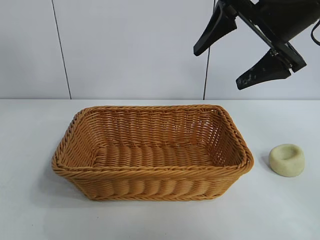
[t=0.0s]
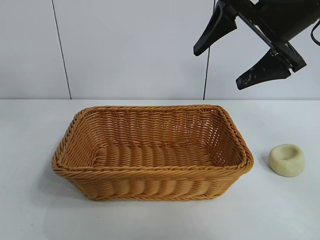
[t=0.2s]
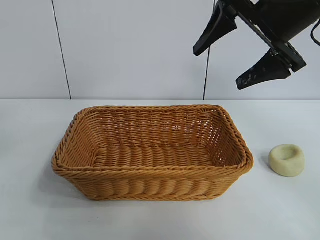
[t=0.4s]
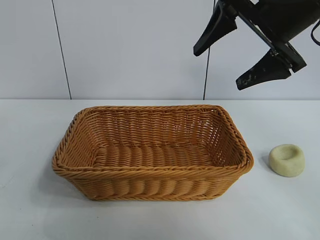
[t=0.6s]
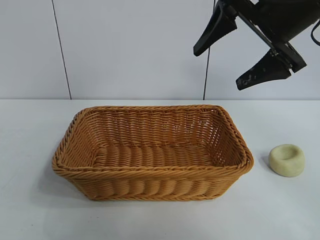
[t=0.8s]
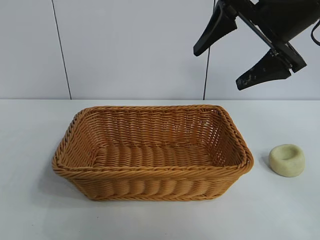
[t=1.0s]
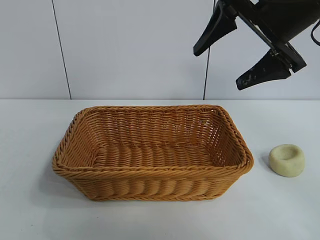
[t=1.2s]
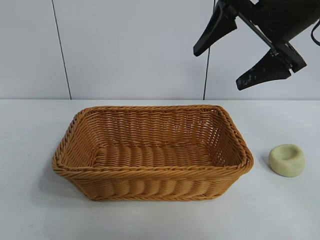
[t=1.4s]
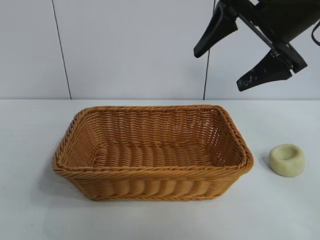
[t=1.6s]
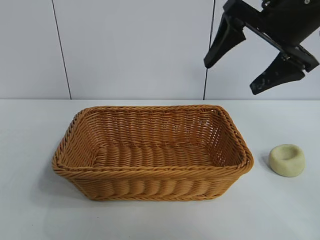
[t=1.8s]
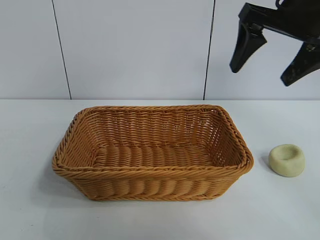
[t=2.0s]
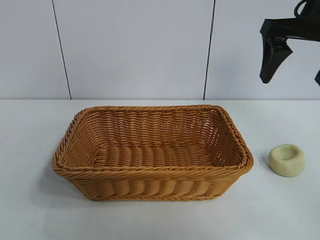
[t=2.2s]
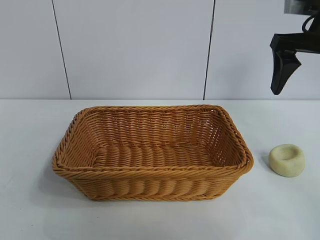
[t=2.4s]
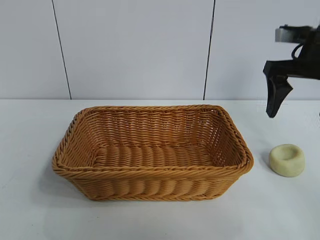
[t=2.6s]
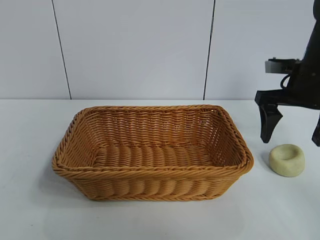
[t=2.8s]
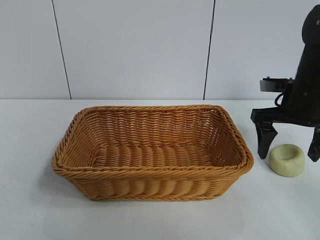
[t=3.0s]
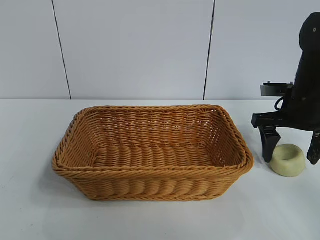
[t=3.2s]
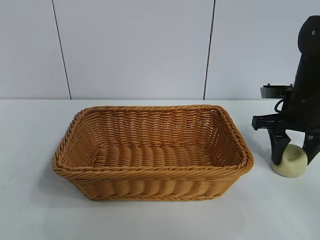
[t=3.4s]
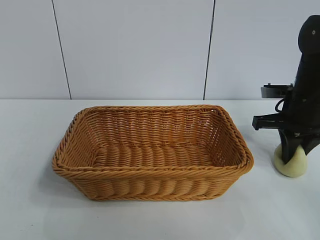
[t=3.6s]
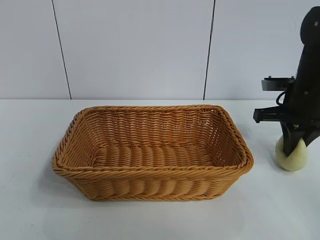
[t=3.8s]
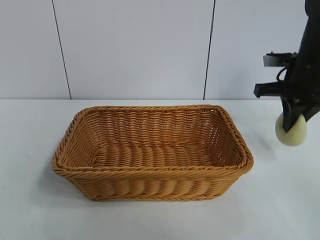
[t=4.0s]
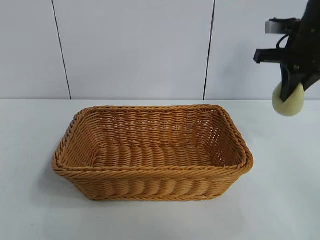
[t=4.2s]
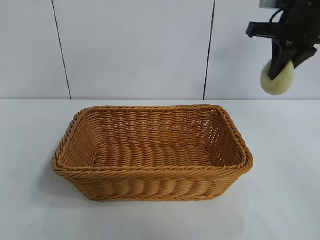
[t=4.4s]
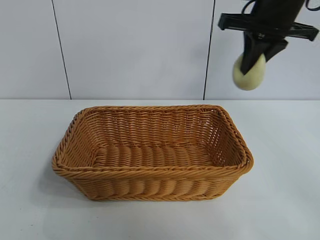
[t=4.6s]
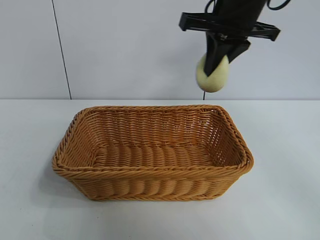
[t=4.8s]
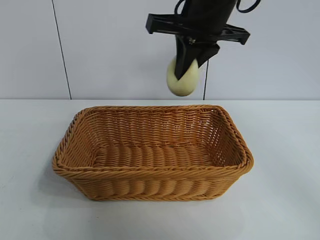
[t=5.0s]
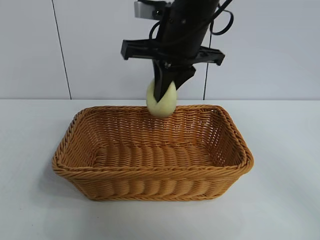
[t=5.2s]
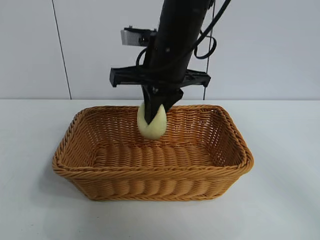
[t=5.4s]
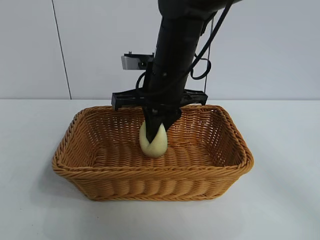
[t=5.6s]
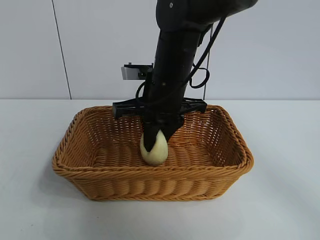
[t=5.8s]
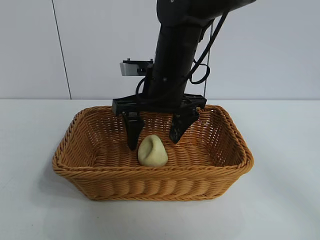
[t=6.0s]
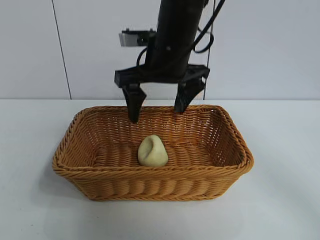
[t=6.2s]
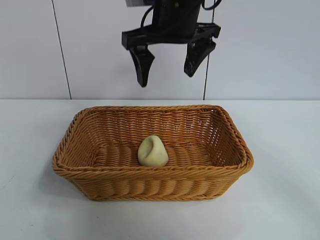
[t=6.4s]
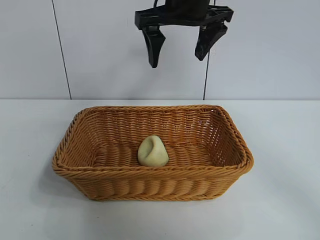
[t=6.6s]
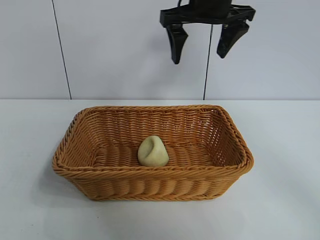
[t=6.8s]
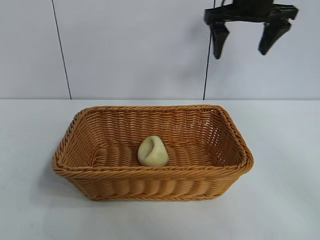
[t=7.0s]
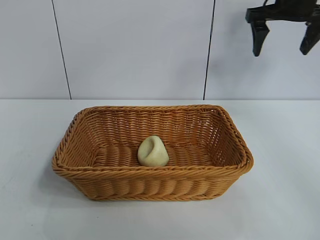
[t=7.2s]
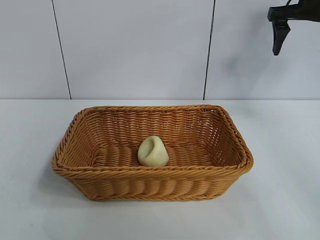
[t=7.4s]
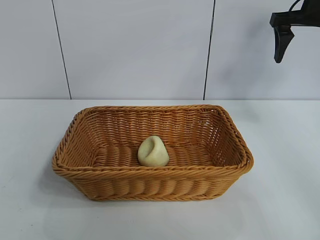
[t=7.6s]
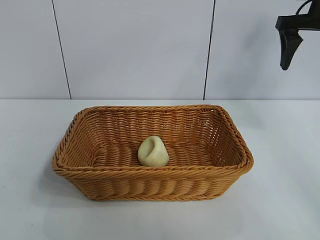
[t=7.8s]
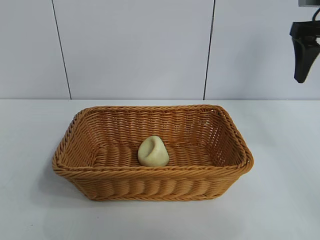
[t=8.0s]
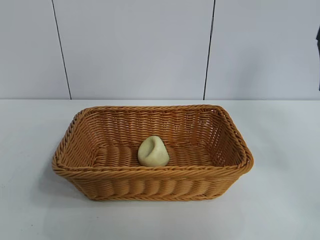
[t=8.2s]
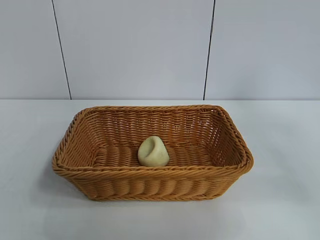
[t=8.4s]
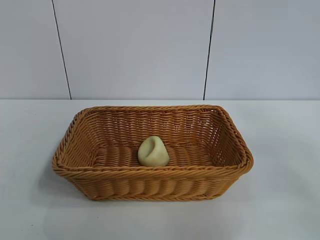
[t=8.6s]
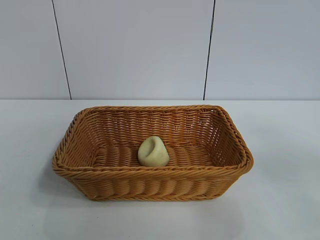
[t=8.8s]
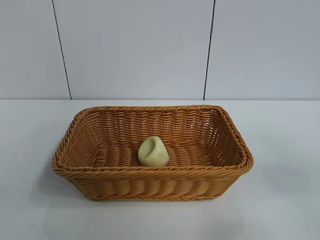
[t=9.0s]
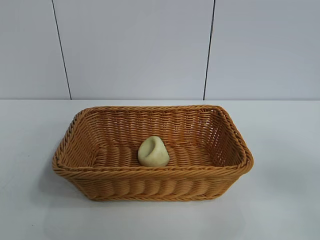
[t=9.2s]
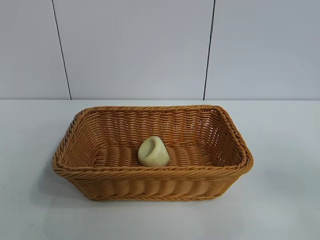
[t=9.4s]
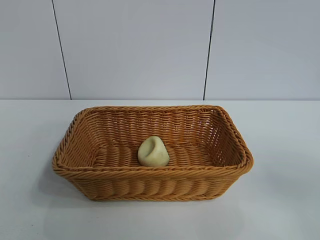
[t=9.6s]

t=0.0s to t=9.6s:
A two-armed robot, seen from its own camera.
Task of the whole recording: pick up the egg yolk pastry and put it into the basket.
Step, t=0.0s to t=3.6s: Grasp egg yolk pastry with right gripper.
Step, t=3.8s to t=6.0s: Place the egg yolk pastry in the basket with right gripper.

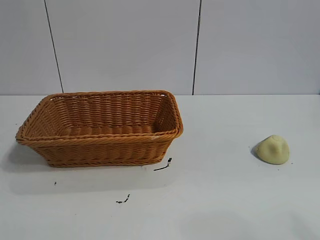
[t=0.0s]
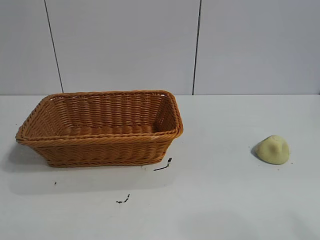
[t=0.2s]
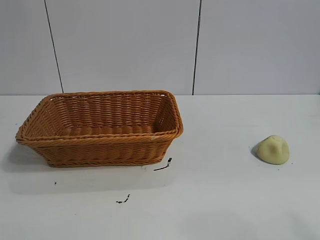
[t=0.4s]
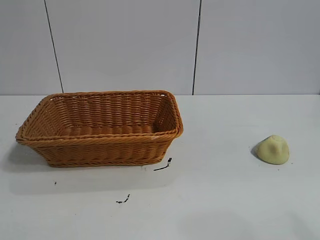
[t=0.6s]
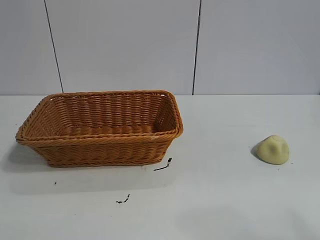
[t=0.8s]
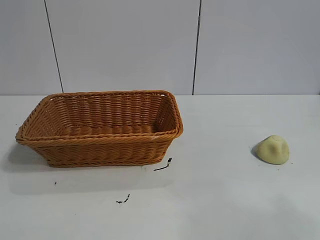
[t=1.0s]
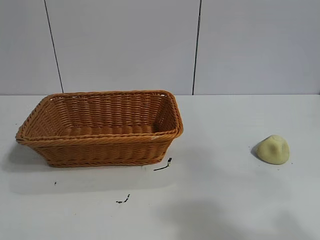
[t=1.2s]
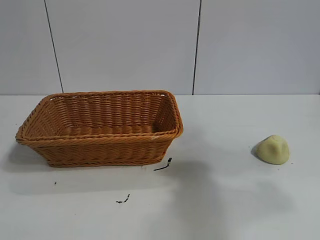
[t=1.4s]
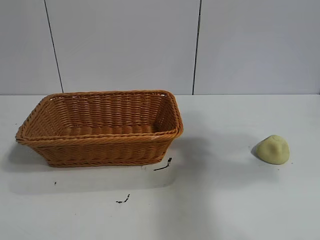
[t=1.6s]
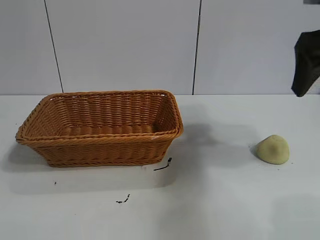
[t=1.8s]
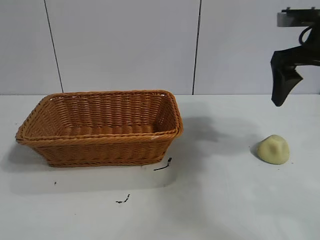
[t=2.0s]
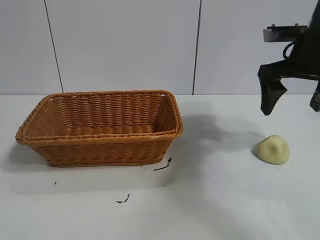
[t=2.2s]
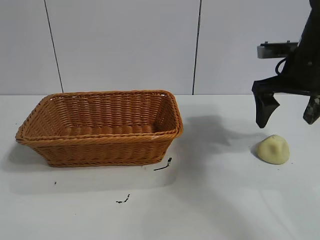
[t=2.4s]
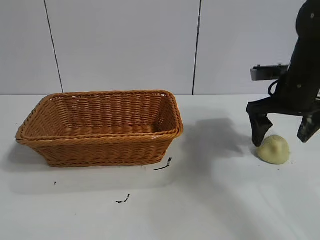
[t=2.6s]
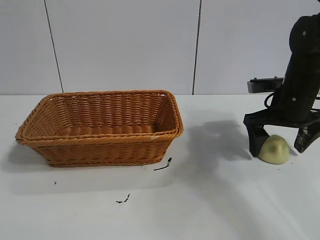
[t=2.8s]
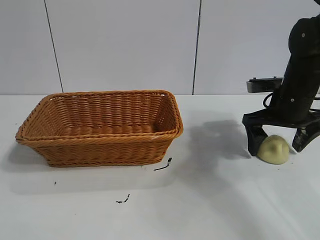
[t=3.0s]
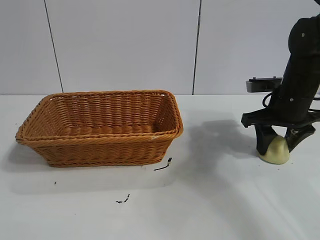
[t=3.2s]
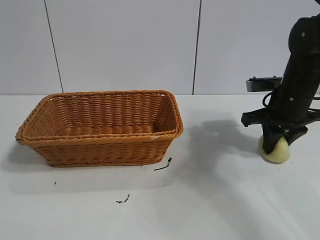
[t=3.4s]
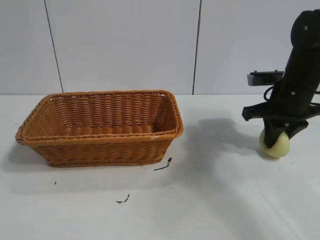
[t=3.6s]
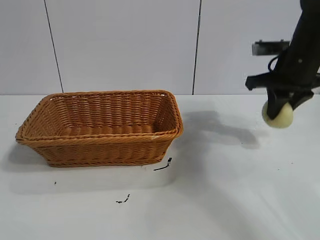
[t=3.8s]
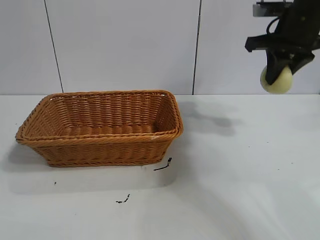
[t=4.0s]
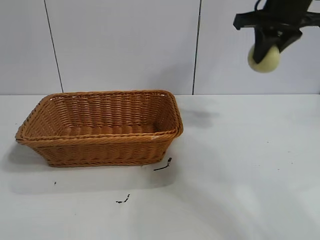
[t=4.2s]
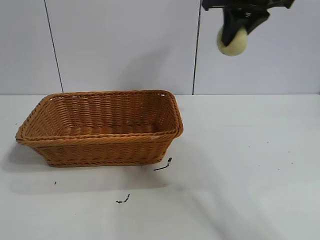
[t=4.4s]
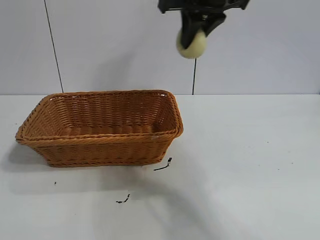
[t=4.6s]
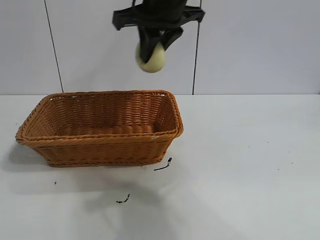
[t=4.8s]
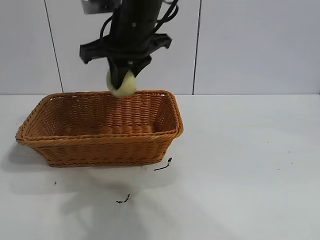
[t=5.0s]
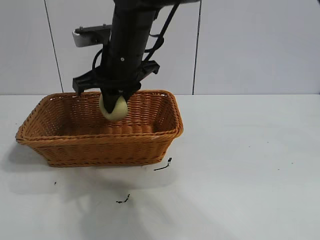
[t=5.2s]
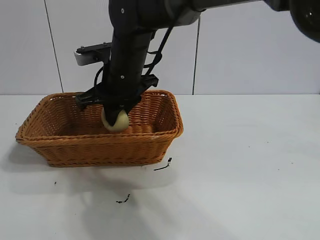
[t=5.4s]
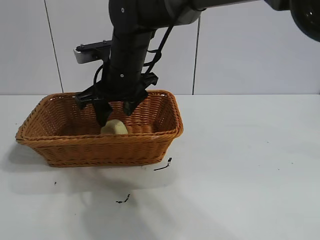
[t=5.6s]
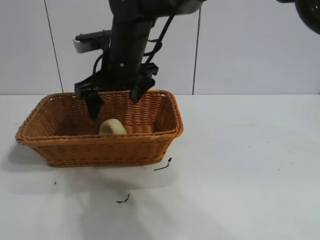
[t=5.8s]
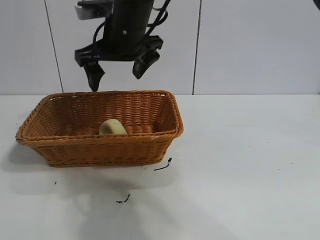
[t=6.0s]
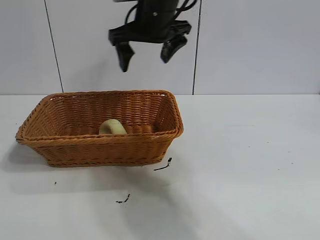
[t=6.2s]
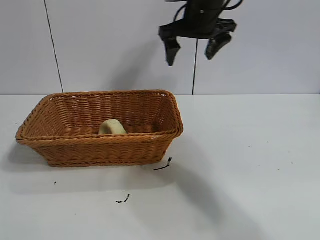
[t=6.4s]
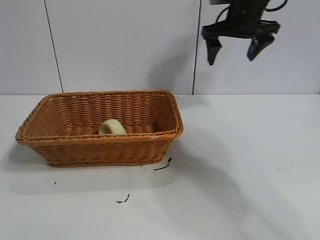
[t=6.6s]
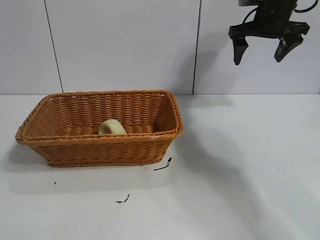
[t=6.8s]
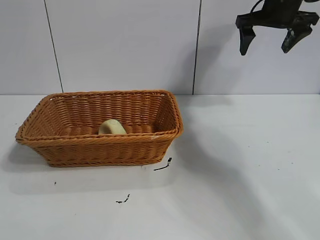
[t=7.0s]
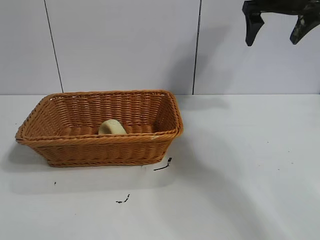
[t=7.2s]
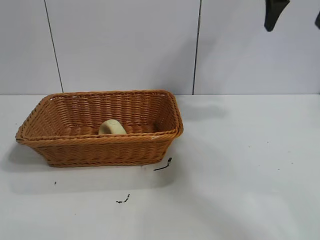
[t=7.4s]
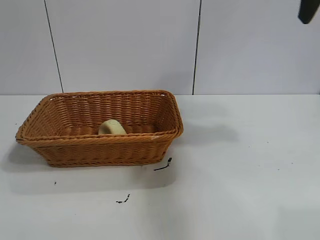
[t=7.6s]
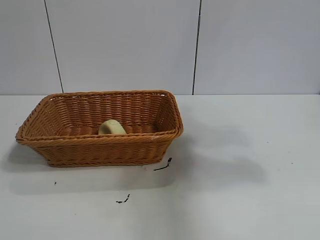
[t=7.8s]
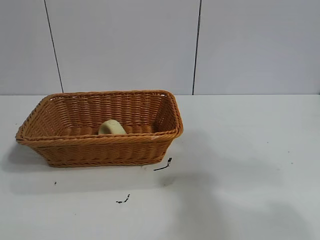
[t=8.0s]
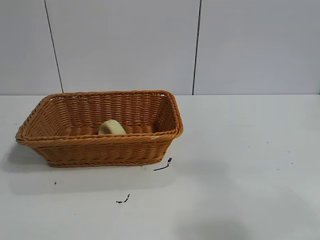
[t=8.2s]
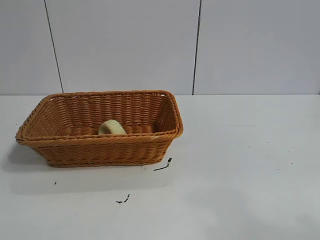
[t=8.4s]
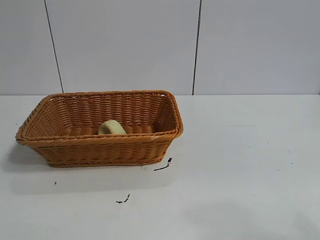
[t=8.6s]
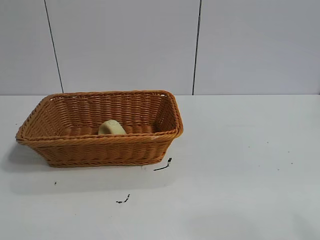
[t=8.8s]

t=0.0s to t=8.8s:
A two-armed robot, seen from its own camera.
Task of the whole recording: pick up the egg yolk pastry and put it into the basket.
Step, t=0.8s to t=3.2s: Grasp egg yolk pastry with right gripper.
Step, t=3.6s to t=5.6s: Place the egg yolk pastry in the basket with right gripper.
